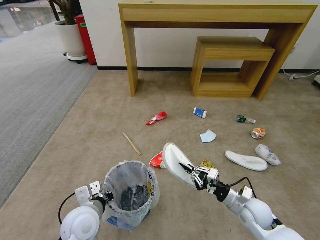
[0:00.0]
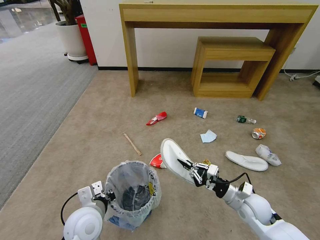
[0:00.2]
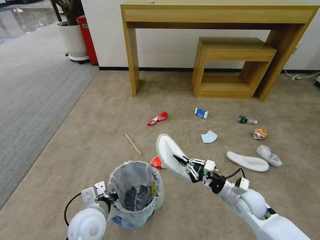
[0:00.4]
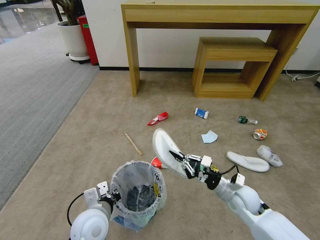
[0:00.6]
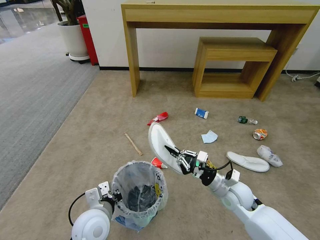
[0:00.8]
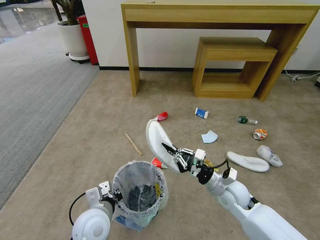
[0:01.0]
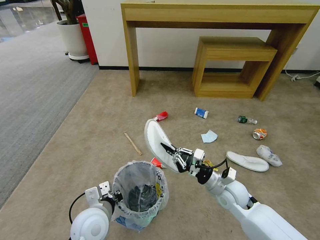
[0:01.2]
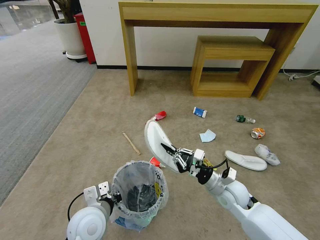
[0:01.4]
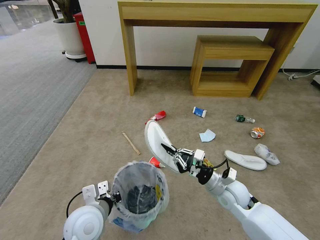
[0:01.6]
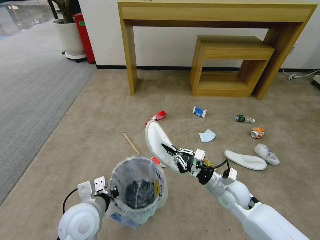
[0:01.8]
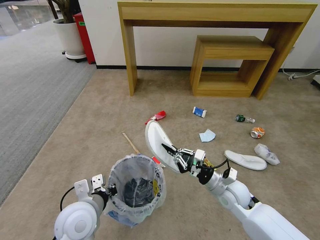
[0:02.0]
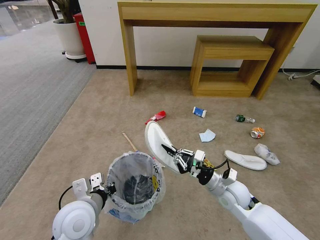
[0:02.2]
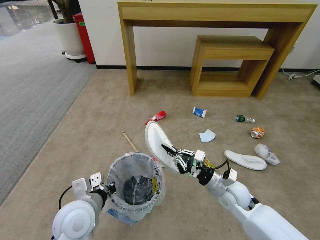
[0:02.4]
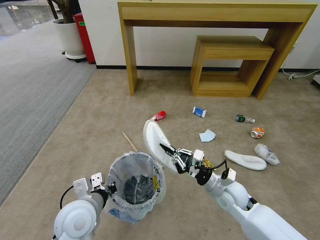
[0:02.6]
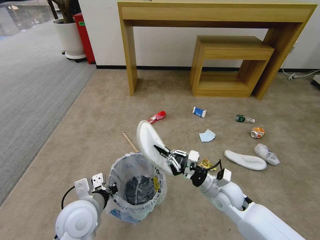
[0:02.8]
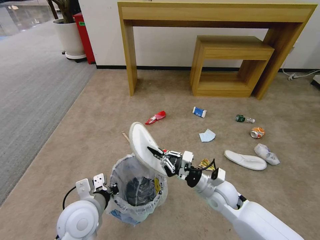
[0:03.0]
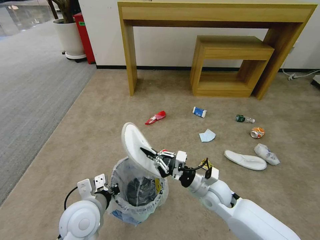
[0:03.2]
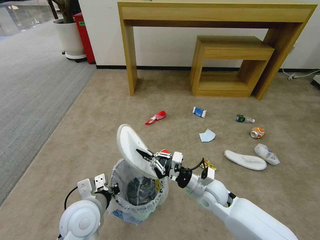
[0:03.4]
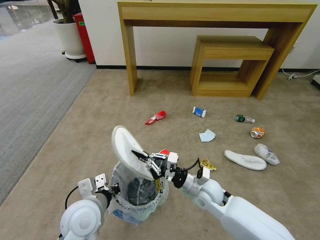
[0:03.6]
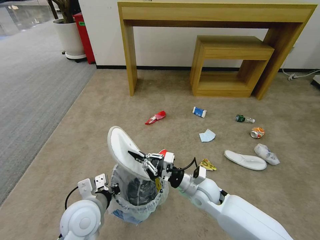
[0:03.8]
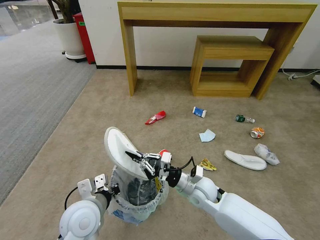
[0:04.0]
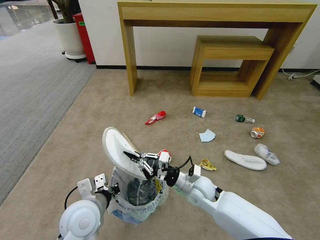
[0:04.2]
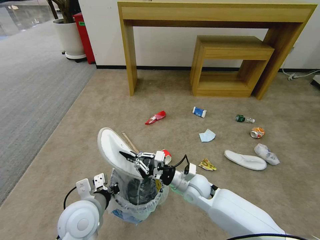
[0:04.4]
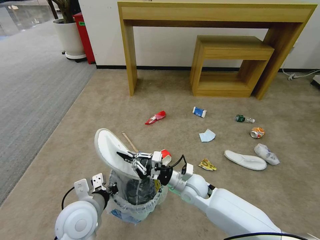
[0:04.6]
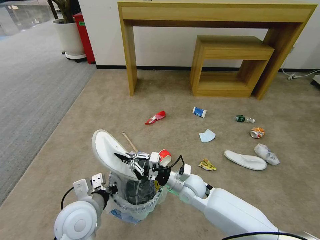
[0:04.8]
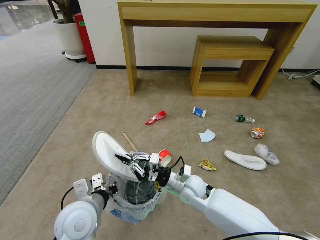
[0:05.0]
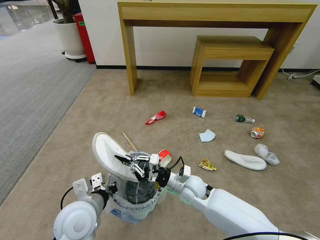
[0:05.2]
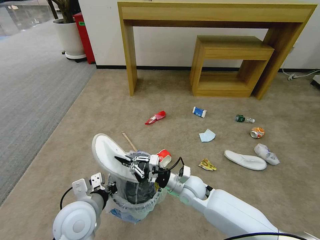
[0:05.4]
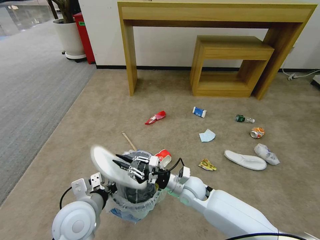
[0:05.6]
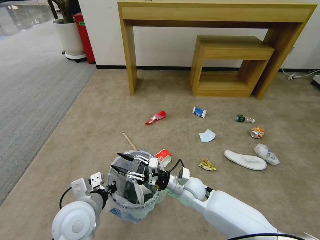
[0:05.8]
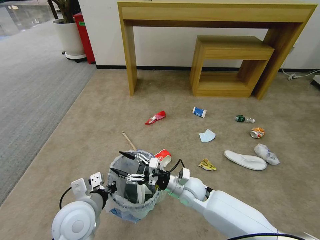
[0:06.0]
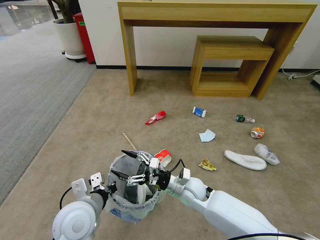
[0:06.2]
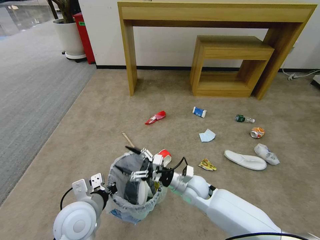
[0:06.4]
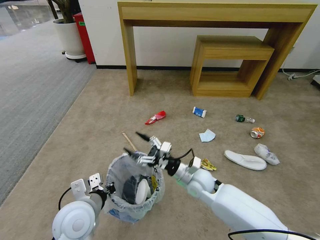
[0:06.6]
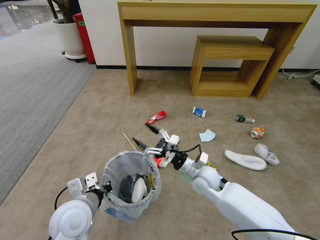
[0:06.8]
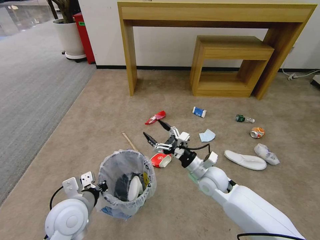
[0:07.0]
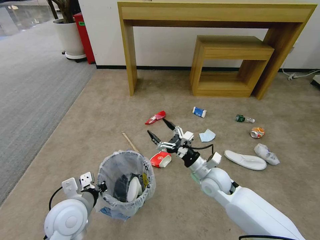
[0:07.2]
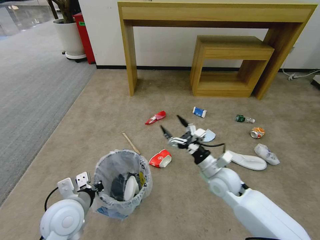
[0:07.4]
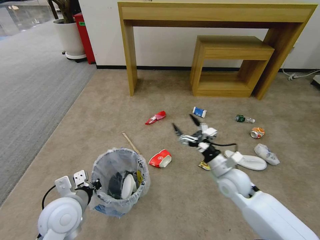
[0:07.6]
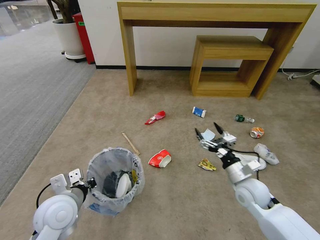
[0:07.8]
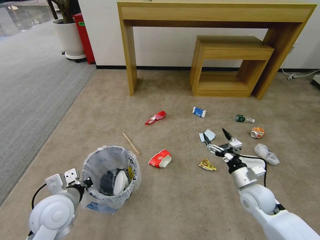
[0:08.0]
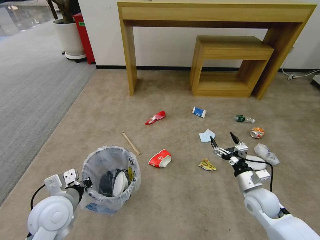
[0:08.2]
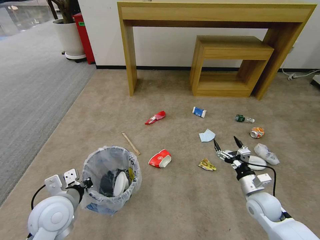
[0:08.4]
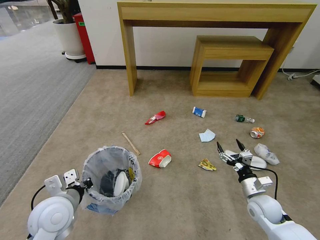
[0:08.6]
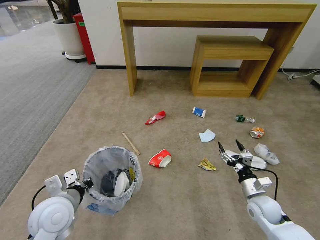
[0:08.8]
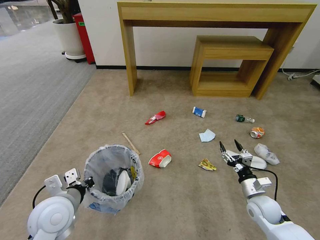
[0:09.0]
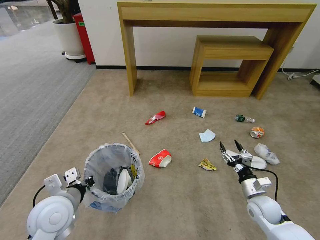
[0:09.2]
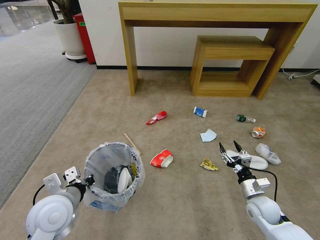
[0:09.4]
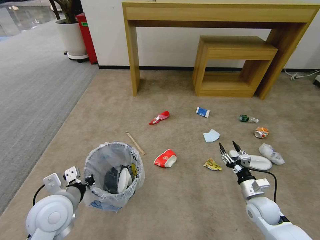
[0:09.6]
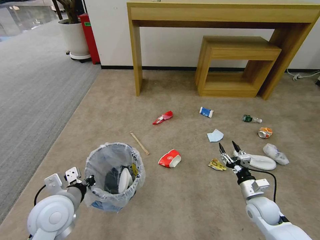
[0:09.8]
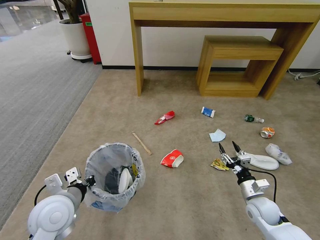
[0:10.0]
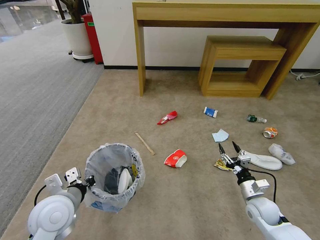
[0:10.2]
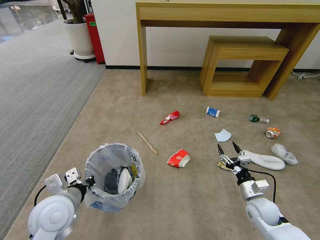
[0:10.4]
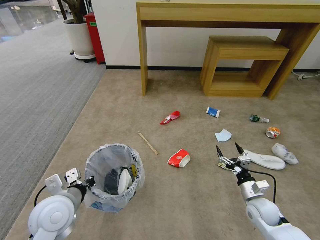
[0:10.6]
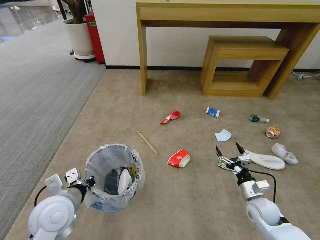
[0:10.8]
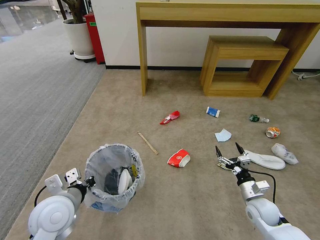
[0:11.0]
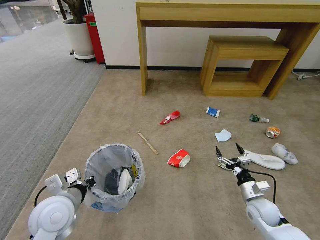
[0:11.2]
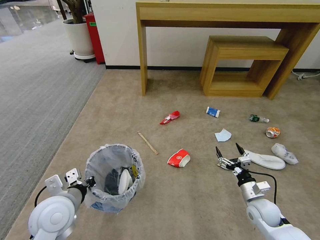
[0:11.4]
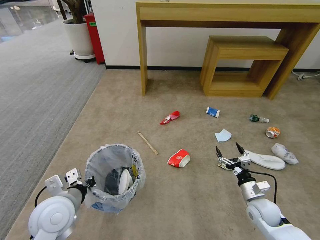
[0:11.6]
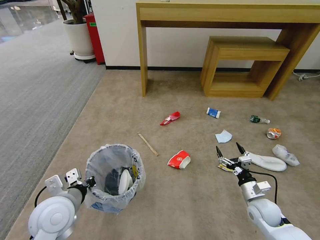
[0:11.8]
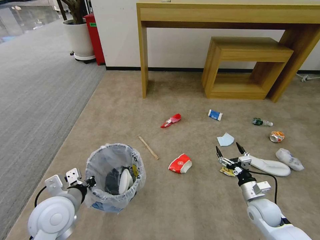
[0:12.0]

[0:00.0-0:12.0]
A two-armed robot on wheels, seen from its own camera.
Task of the whole recording: Pick up the trash bin and place the garbage on the floor into it.
0:00.0 to 0:01.6: The right gripper travels to the left by about 5 cm.
0:01.6 to 0:03.0: The grippers make only small movements.
0:03.0 to 0:04.4: The right gripper travels to the left by approximately 10 cm.
0:04.4 to 0:06.0: The right gripper opens.
0:06.0 to 0:07.6: The right gripper travels to the right by roughly 15 cm.
0:07.6 to 0:09.0: The right gripper travels to the right, downward and backward by some 15 cm.
0:09.0 to 0:10.4: Both grippers stay about where they are.
0:10.4 to 0:12.0: The two grippers keep their place.

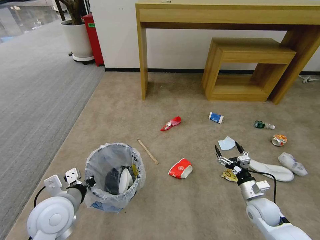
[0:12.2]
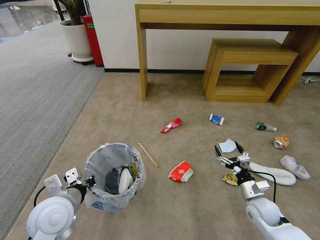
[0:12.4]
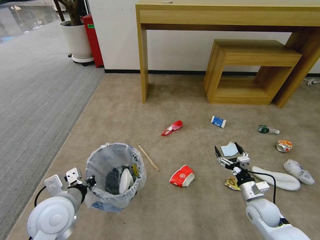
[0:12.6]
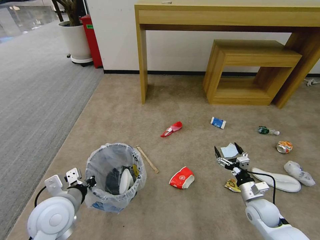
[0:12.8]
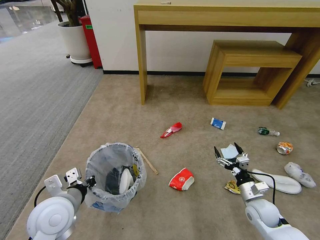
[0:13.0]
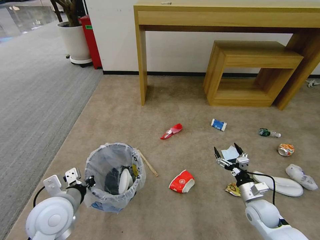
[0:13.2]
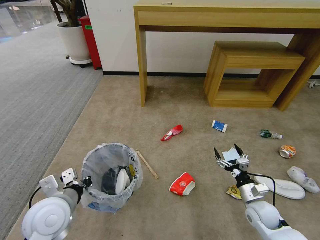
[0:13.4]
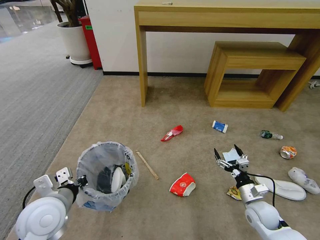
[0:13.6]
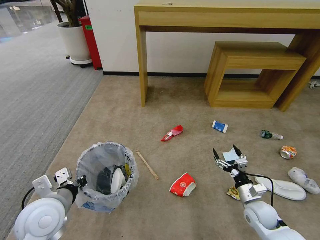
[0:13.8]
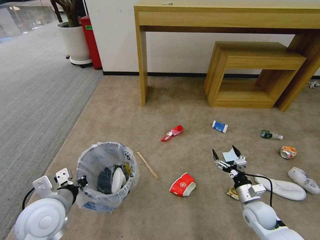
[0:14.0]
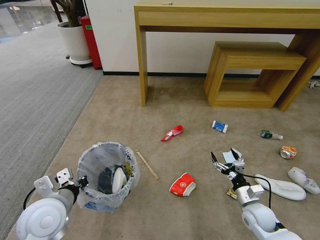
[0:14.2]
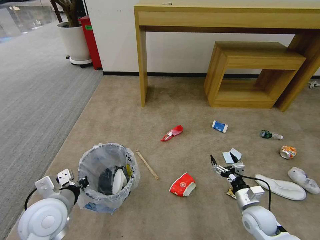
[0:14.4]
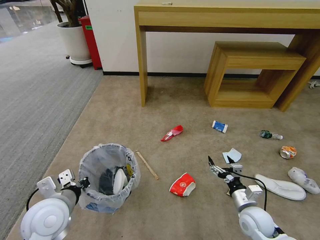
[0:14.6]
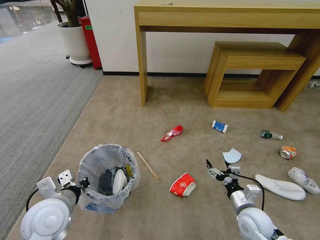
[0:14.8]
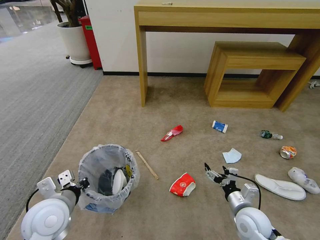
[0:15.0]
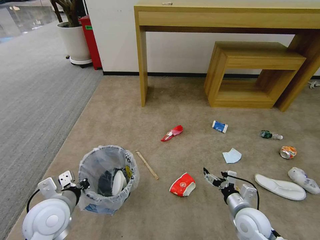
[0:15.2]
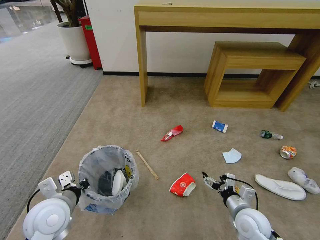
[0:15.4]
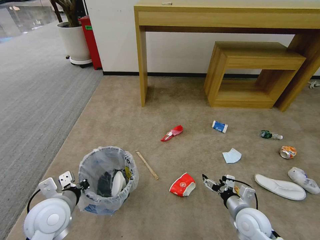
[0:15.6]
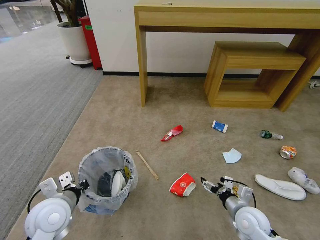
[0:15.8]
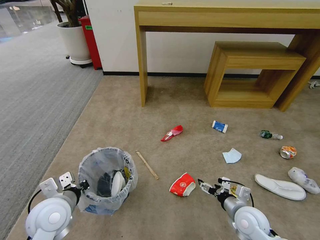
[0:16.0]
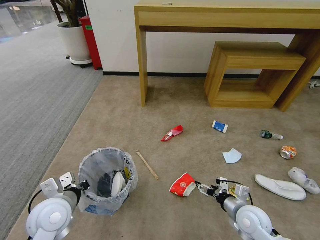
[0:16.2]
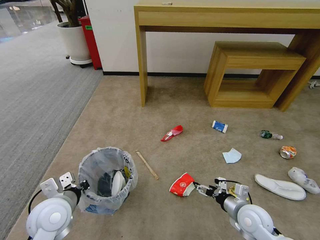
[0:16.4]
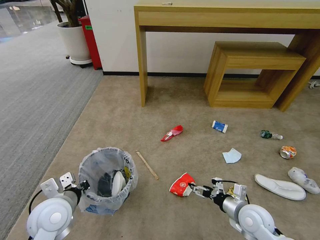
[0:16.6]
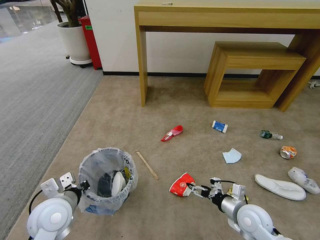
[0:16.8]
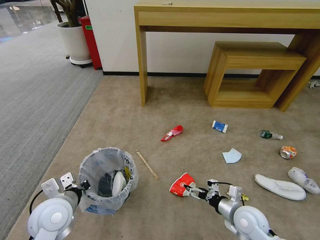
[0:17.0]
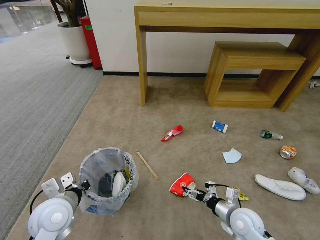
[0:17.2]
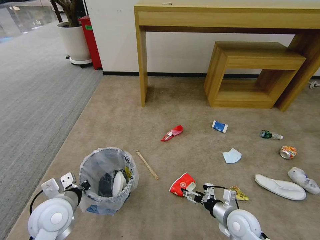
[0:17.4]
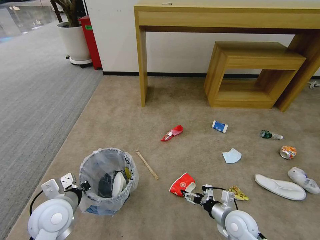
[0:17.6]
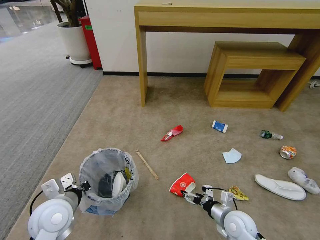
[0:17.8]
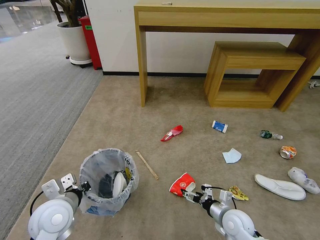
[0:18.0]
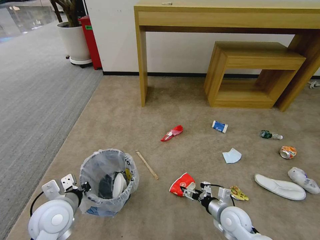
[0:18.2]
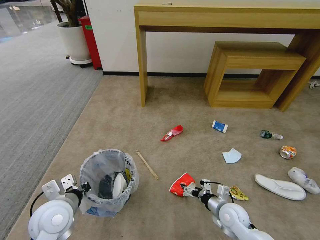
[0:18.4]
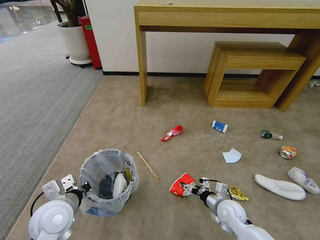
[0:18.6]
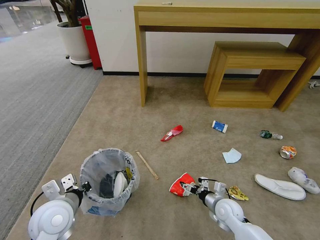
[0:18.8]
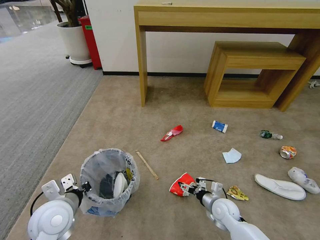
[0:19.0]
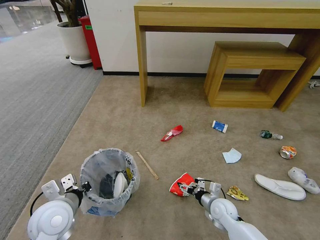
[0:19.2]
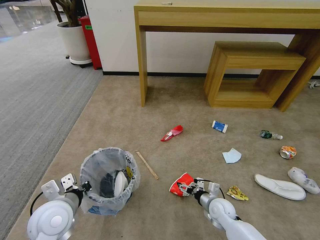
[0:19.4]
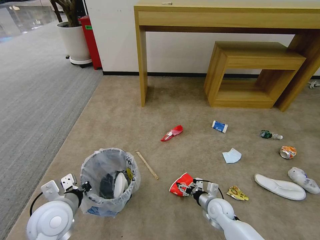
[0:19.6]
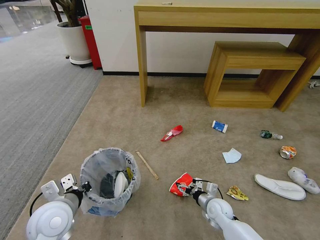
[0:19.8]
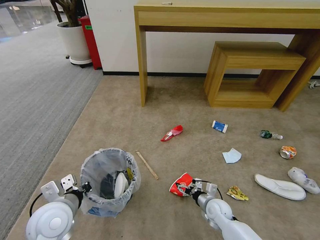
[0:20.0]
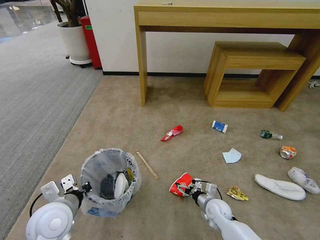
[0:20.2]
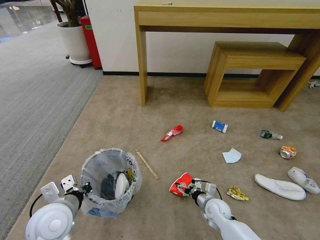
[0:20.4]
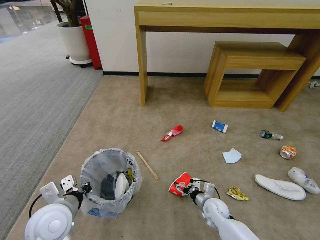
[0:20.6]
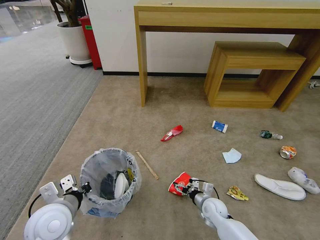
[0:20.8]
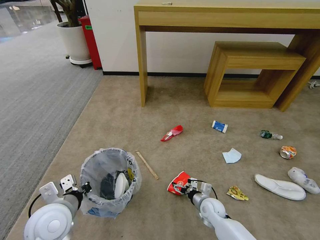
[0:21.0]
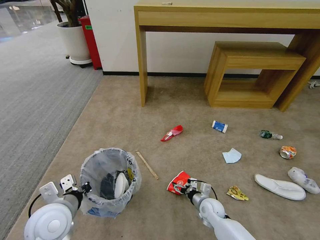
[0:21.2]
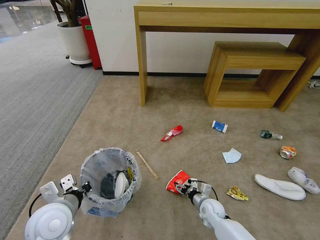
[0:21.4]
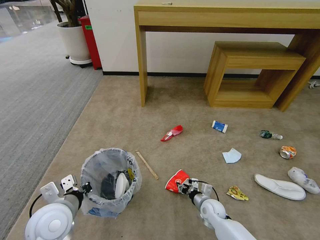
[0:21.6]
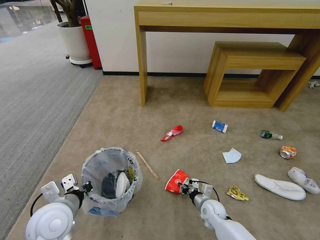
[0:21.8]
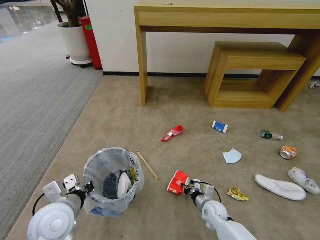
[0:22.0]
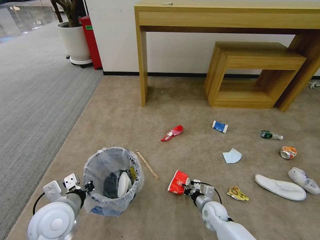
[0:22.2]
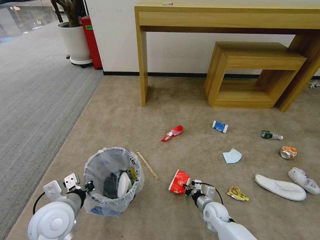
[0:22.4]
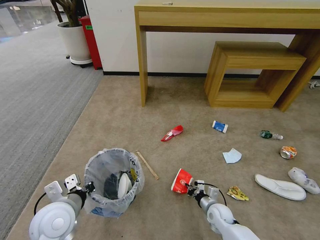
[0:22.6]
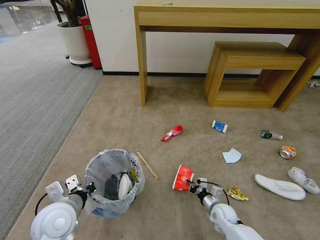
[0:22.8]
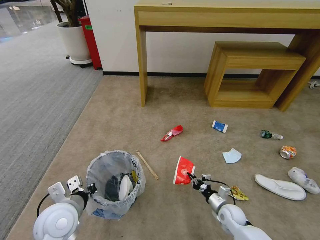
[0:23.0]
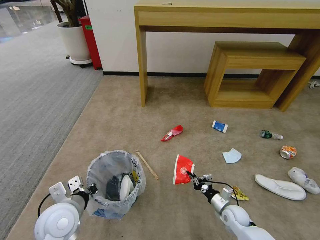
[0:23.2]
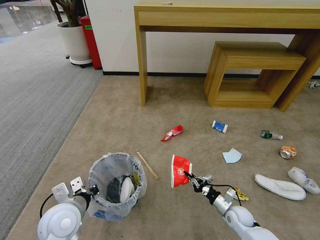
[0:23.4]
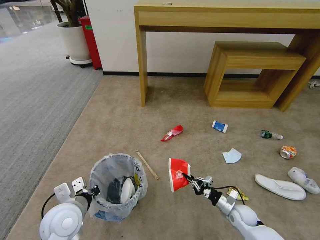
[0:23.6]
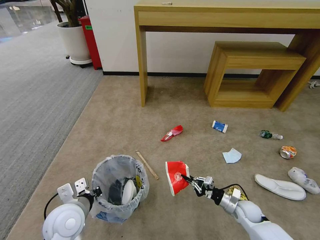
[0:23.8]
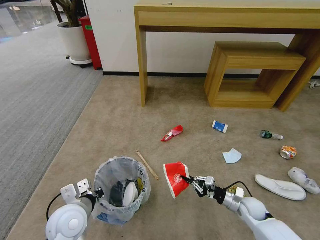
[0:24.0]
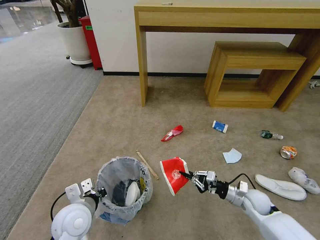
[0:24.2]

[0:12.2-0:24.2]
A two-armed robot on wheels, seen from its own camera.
Task of the whole recording: Pick up the trash bin and place the garbage on the floor into it.
0:13.8 to 0:15.2: The right gripper goes some 5 cm to the left.
0:16.6 to 0:18.2: The right gripper heads downward, covering roughly 5 cm.
0:18.2 to 0:19.8: The right gripper goes some 5 cm downward.
0:19.8 to 0:21.2: The grippers make only small movements.
0:21.2 to 0:22.6: The right gripper closes up.
0:22.6 to 0:24.2: The left gripper changes place by some 5 cm, while the right gripper shifts some 15 cm to the right and upward.
